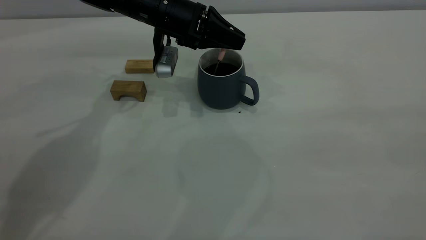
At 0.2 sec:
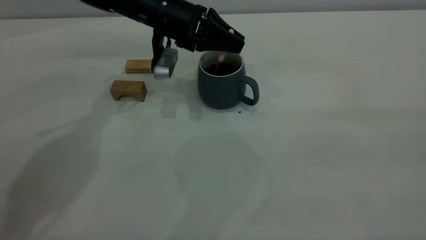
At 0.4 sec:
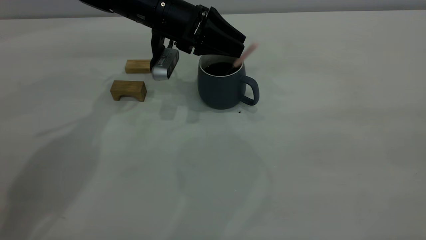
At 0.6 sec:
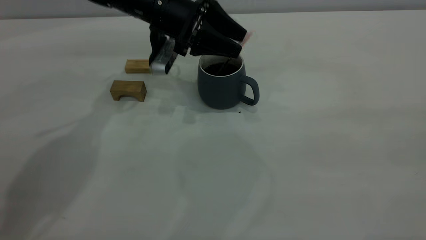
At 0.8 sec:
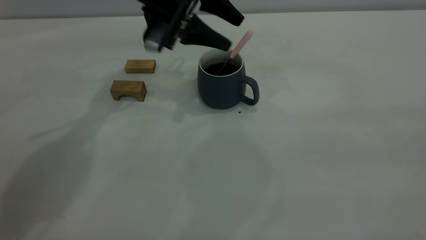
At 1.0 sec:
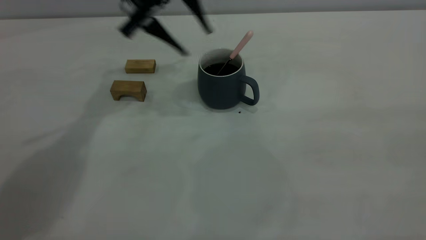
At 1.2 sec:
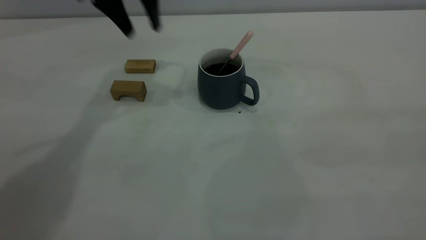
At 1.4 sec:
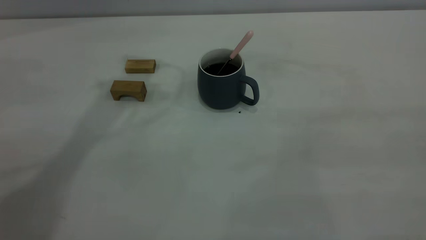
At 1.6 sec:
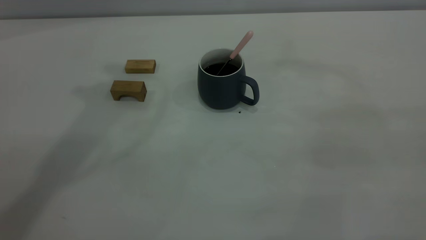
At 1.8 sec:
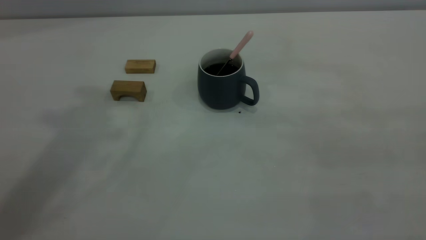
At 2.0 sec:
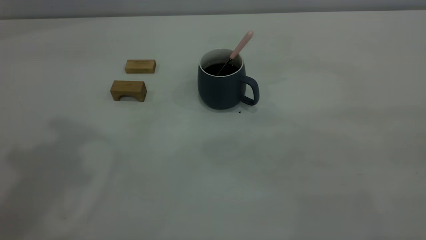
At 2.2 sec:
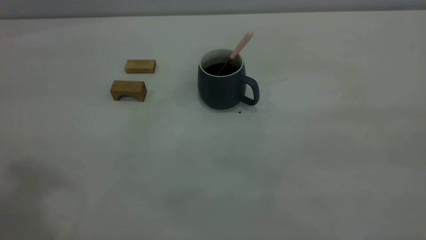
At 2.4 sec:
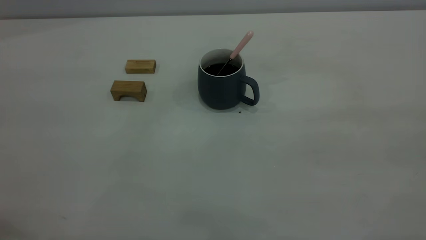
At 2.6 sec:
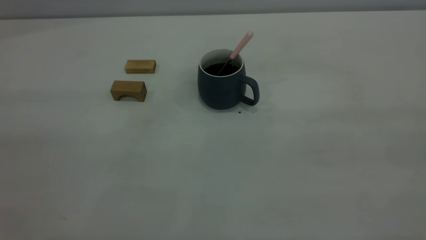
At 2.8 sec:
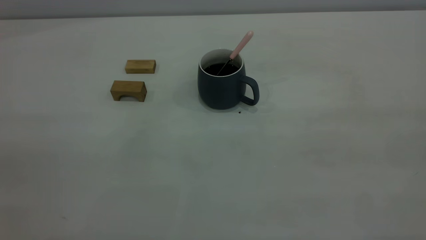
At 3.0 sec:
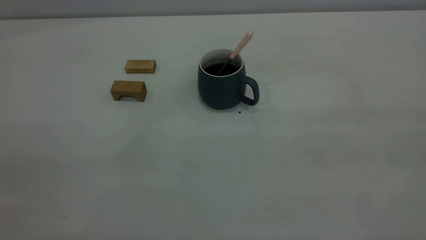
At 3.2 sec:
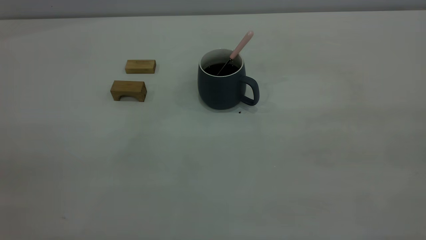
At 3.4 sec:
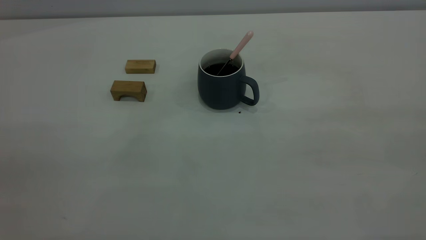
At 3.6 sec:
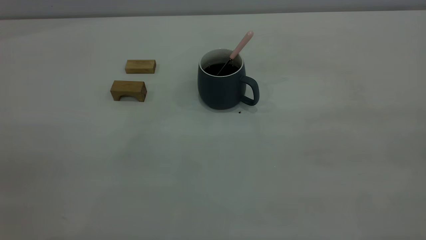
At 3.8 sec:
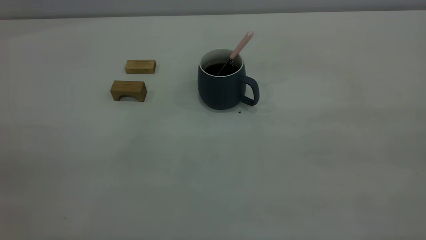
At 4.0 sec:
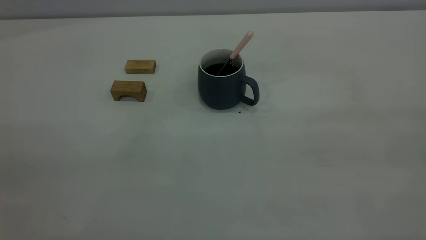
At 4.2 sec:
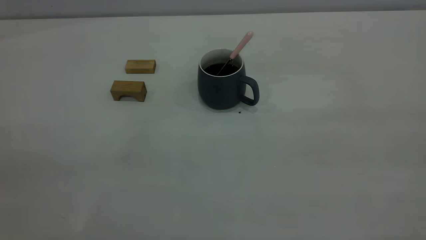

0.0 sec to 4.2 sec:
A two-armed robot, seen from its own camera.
0.0 sec to 1.4 sec: The left gripper travels upward by approximately 25 cm, and opens up.
2.8 sec to 4.2 sec: Both grippers stay about where they are.
